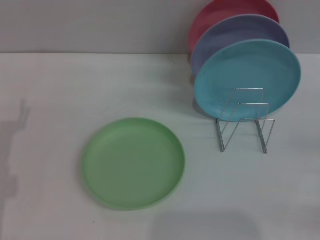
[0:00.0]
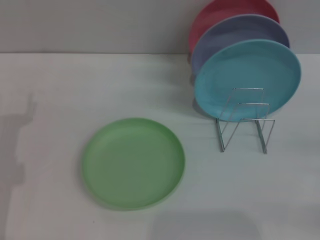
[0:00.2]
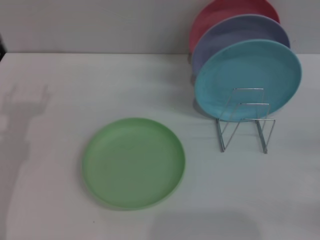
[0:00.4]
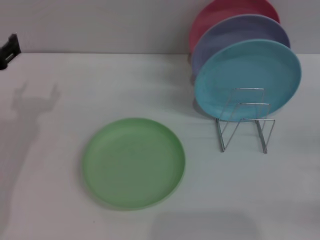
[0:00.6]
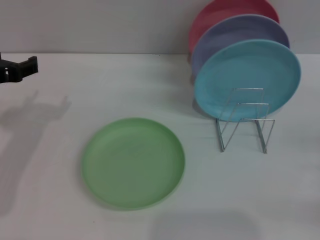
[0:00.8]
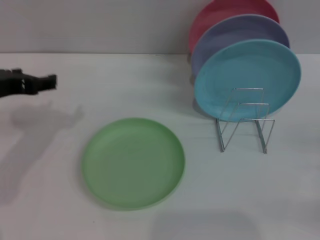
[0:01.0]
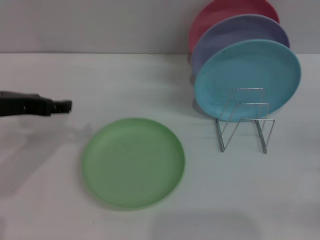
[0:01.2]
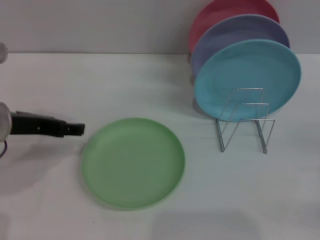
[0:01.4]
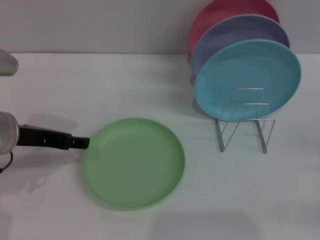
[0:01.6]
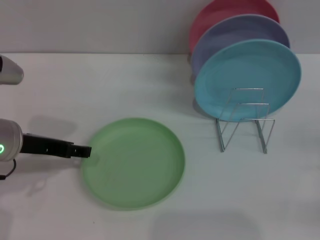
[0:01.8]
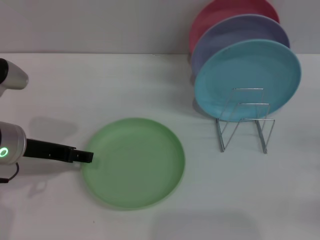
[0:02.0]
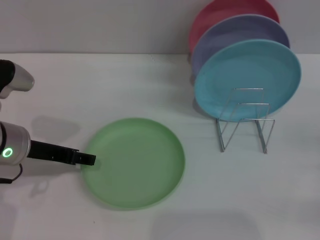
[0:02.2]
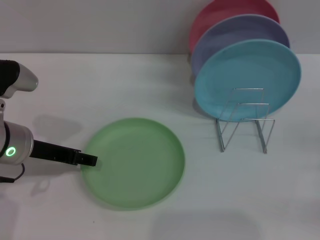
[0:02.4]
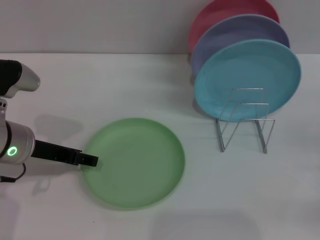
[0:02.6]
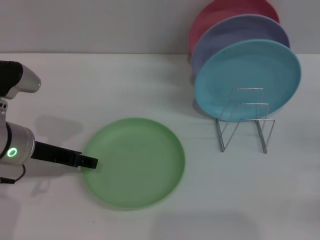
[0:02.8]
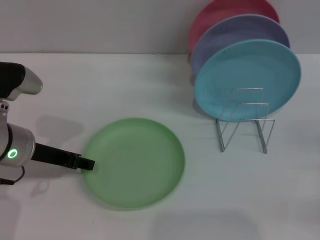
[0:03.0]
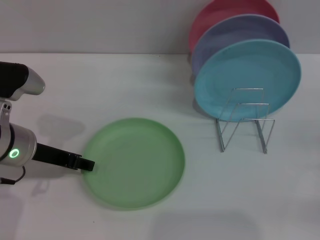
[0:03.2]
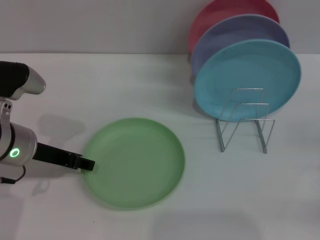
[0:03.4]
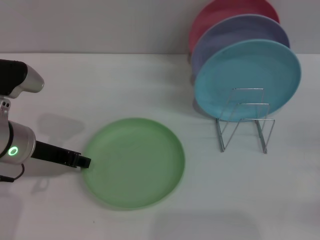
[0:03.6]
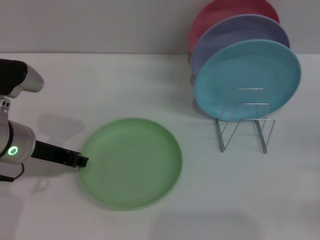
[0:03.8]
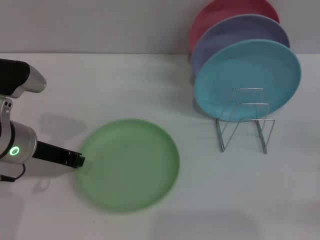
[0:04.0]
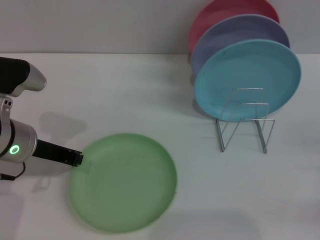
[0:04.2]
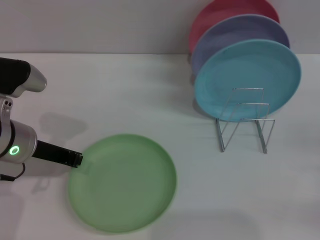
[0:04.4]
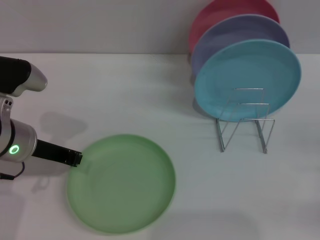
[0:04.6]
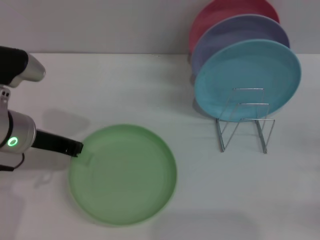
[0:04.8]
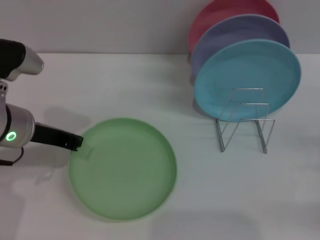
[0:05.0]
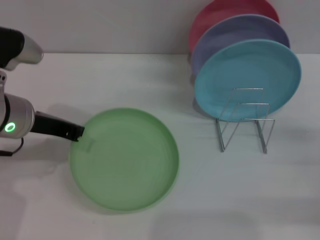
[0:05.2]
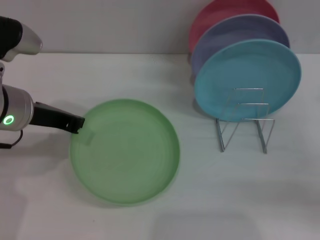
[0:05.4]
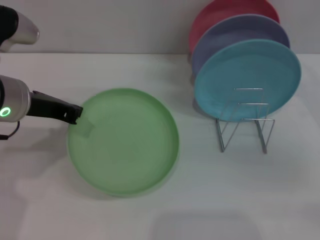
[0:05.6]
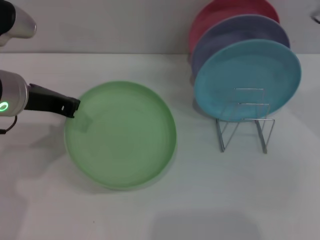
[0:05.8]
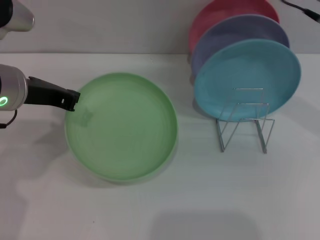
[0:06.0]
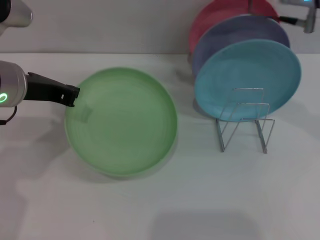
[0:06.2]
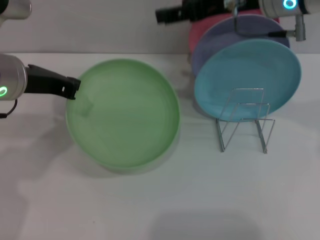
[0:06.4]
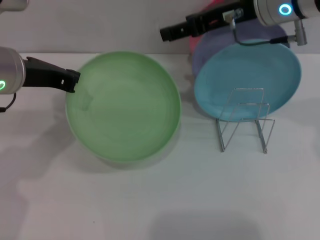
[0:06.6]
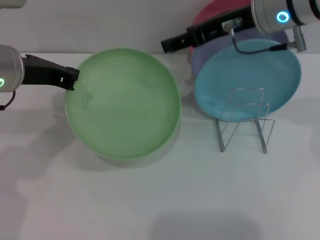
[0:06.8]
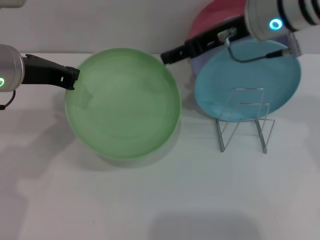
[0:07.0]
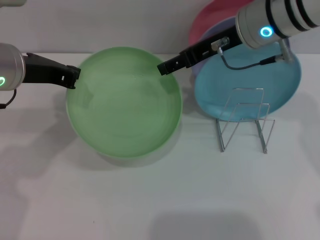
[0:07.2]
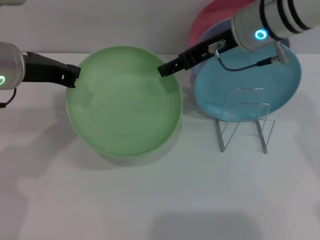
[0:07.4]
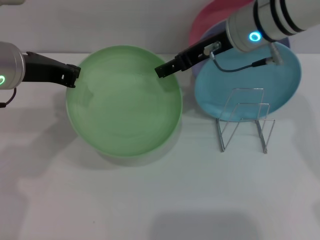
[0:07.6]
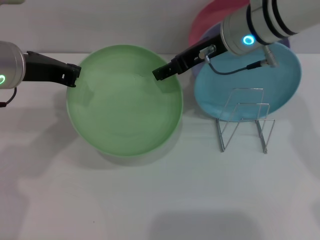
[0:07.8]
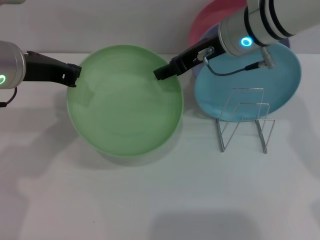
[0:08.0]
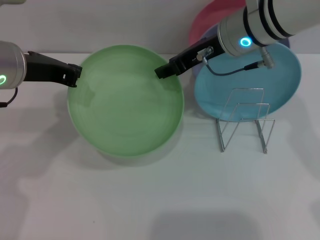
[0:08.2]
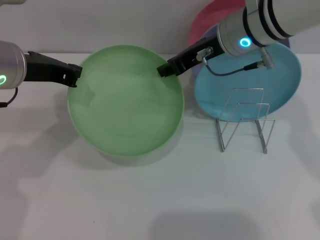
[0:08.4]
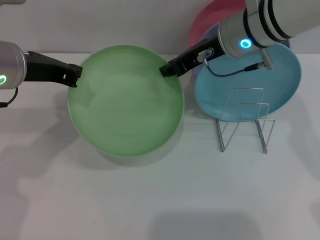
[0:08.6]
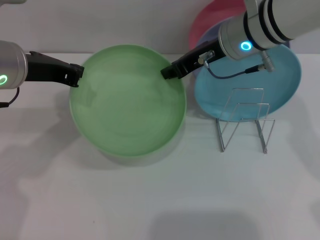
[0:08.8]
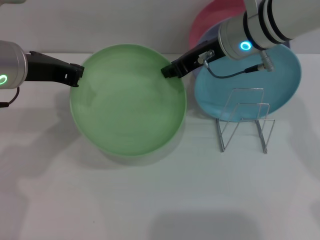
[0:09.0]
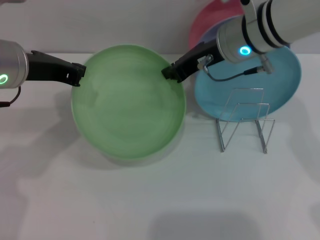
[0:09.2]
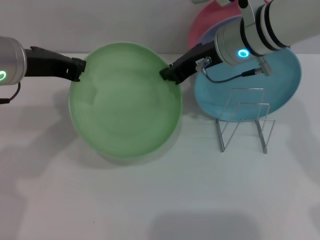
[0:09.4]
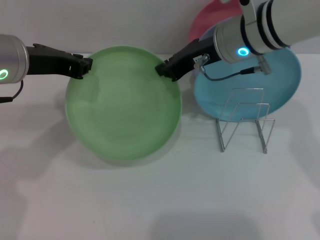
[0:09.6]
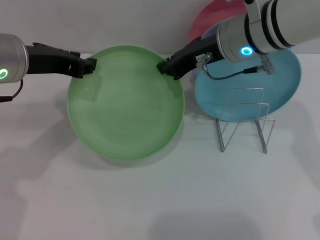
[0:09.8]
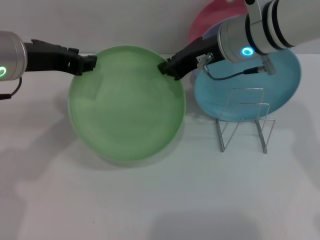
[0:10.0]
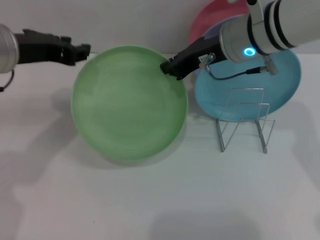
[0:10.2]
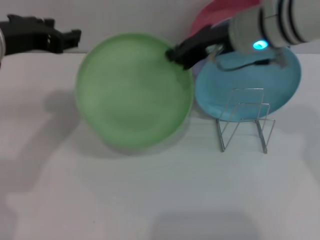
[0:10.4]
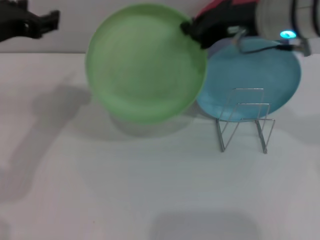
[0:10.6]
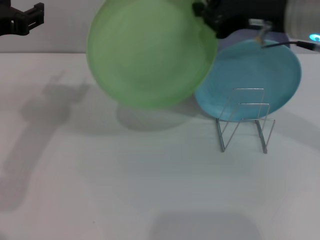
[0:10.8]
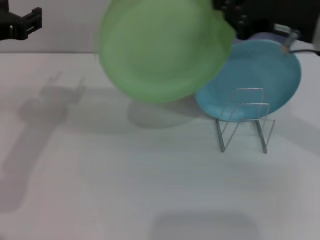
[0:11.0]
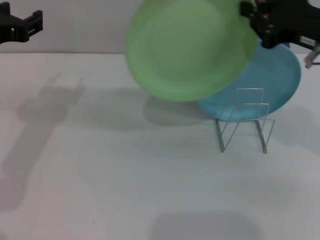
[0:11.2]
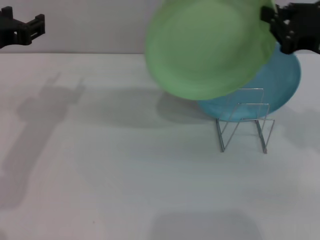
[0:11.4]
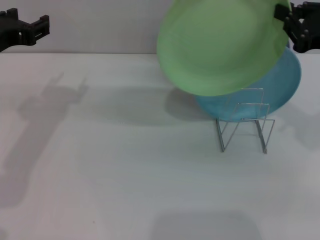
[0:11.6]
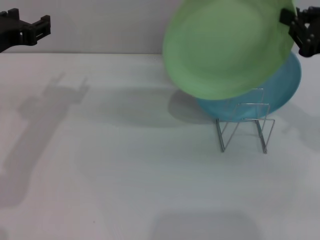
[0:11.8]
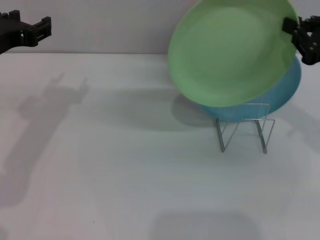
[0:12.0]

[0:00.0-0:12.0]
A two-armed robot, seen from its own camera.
Task of the whole recording: Grip the plate with one hand, pass it to the other, then set it on the shelf.
Step, 0:00.0 to 0:05.8: Pick up the plate with the left gripper.
Step, 0:06.2 to 0:10.6: Pass the plate from the left gripper to the right gripper.
0:00.0 to 0:01.6: The left gripper moves upward and to the right, about 10 cm.
0:01.6 to 0:03.0: The grippers stay close to where they were, moving slightly.
0:03.0 to 0:04.4: The left gripper closes up.
0:04.4 to 0:06.0: The left gripper travels upward by roughly 5 cm. Meanwhile the right gripper moves upward, to the left and forward, roughly 30 cm.
0:06.0 to 0:07.6: The right gripper travels to the left by approximately 10 cm.
0:07.6 to 0:09.0: The right gripper closes up.
0:09.0 to 0:10.4: The left gripper opens up.
0:10.4 to 0:12.0: The right gripper heads to the right and backward, covering some 20 cm.

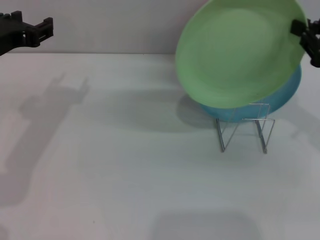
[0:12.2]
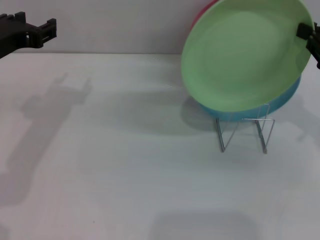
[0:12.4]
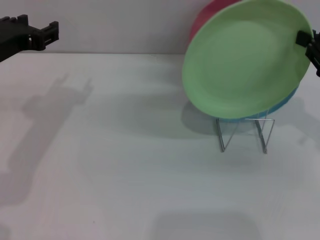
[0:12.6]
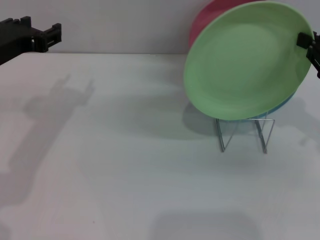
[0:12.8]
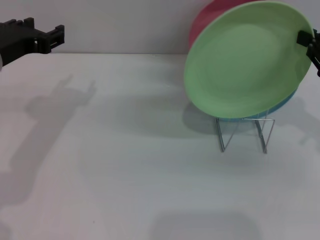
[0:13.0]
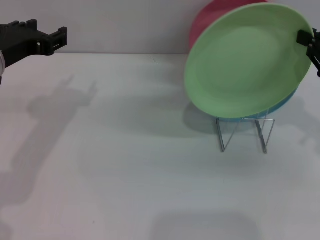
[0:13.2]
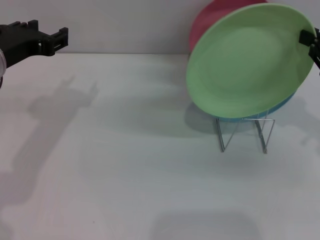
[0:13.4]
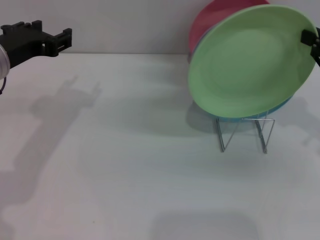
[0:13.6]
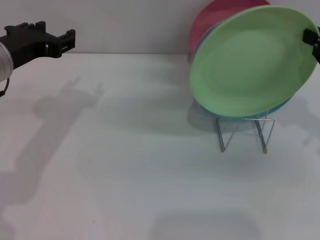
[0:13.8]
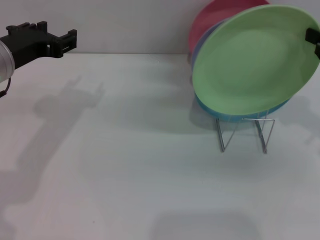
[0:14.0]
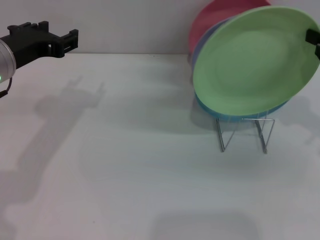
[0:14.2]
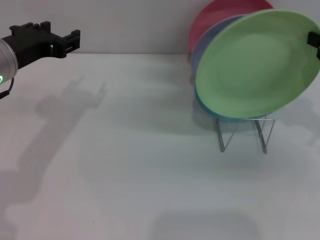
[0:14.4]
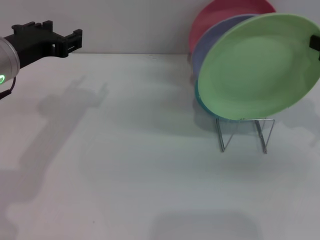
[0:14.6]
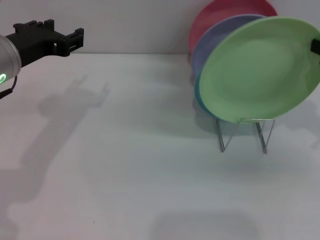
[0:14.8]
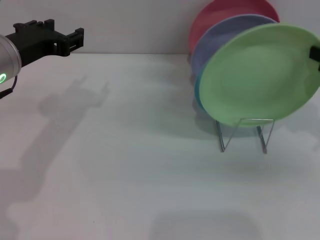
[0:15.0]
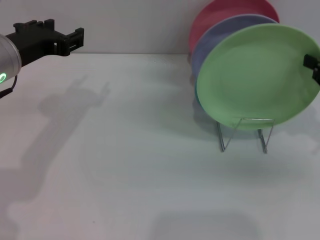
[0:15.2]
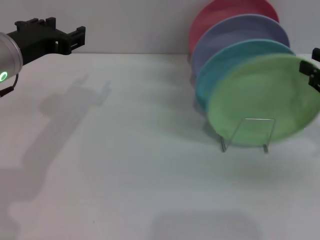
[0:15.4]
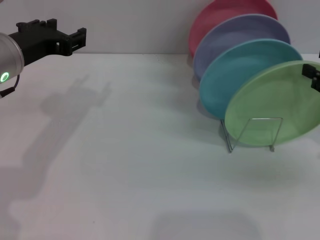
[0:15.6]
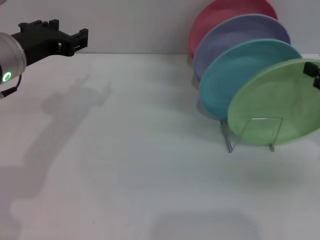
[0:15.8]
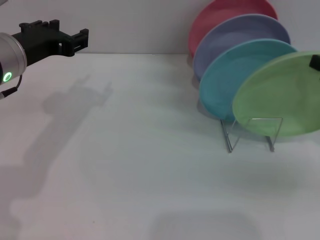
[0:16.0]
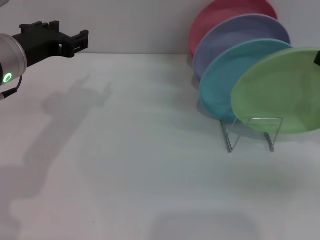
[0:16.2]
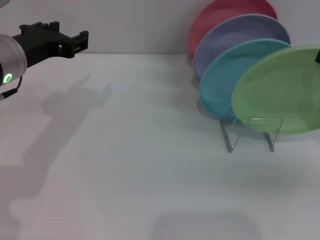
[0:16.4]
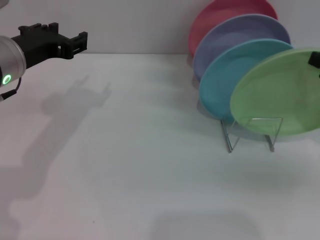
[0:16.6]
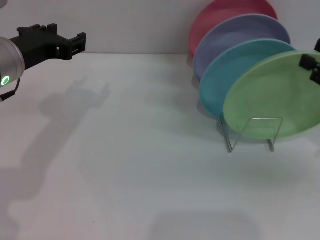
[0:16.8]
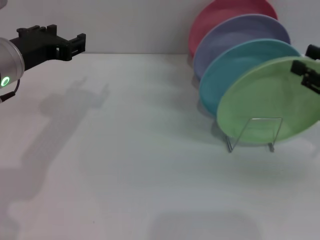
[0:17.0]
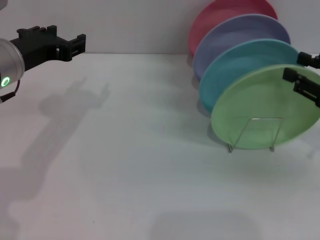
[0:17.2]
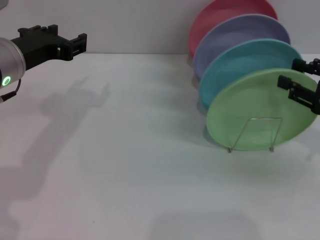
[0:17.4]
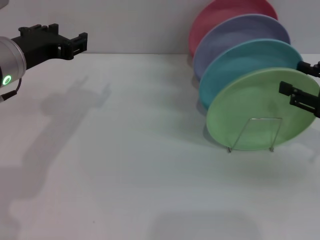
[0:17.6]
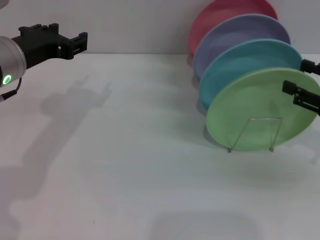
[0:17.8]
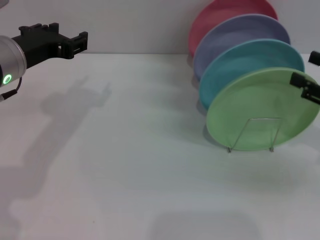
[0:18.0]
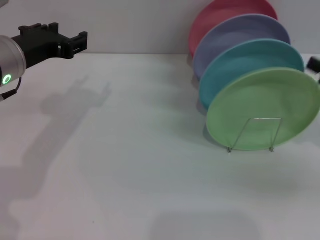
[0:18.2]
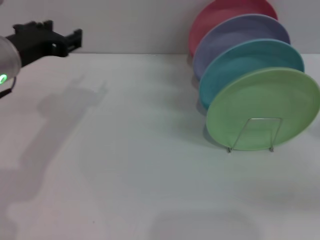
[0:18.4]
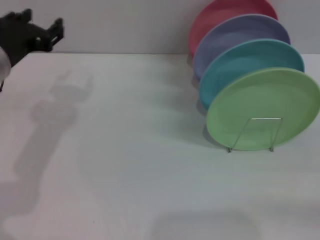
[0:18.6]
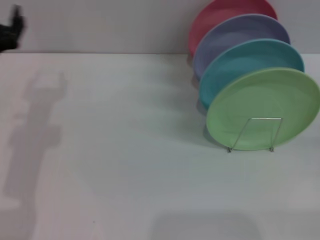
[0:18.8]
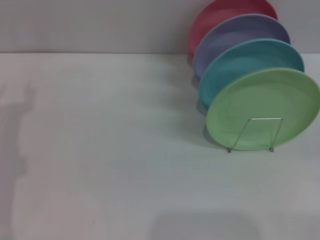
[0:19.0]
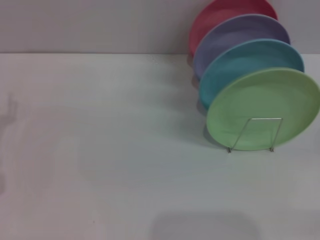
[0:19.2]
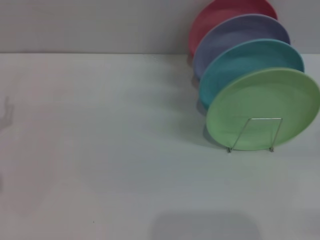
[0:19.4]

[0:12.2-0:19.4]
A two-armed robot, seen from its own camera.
Task of the whole recording: Grip the plate with one hand, pass it to the other, then set it on the shelf.
Step, 0:12.2 to 0:18.0: Place the plate on the shelf with the right gripper.
0:12.2 to 0:15.0: There are only small adjustments of the grippers.
0:15.0 to 0:16.6: The right gripper opens up.
0:16.6 to 0:18.0: The grippers make only small movements.
0:18.0 to 0:19.4: The right gripper goes about 15 cm downward, backward and to the right. Meanwhile the left gripper goes some 20 cm downward, to the left and backward.
